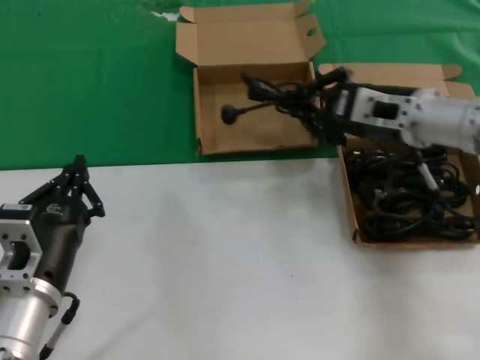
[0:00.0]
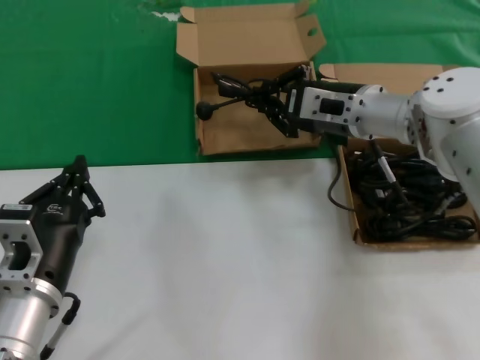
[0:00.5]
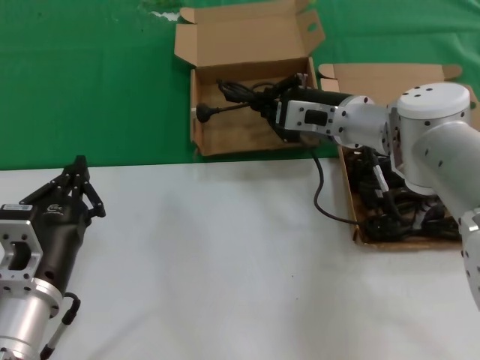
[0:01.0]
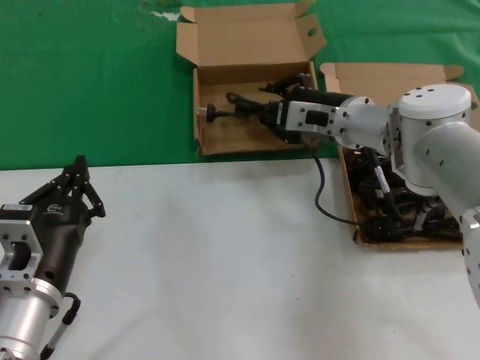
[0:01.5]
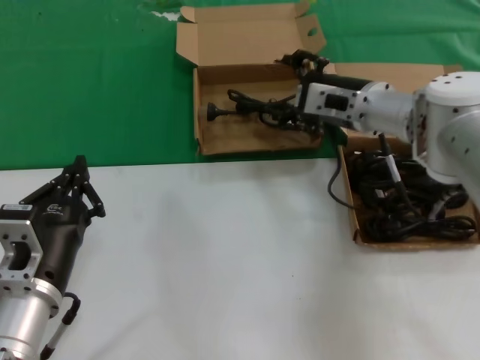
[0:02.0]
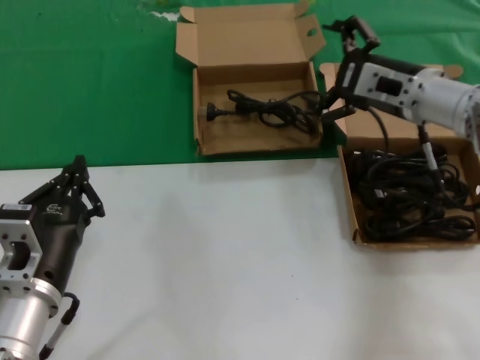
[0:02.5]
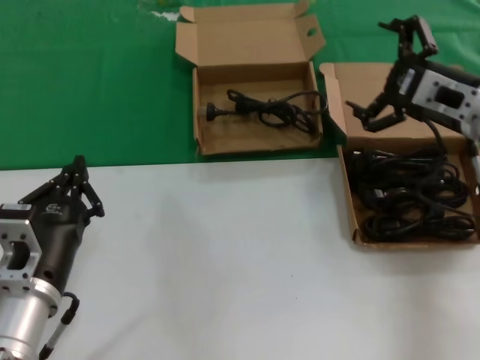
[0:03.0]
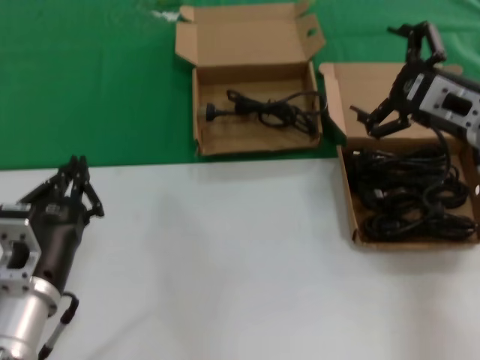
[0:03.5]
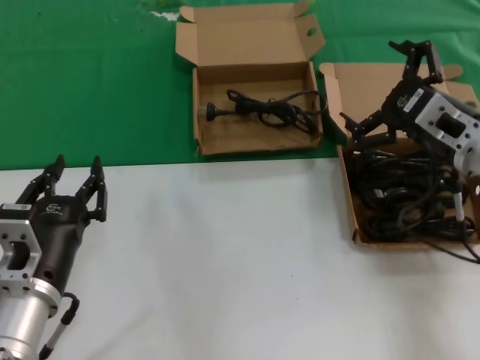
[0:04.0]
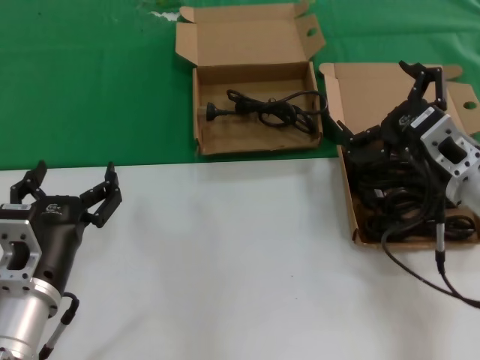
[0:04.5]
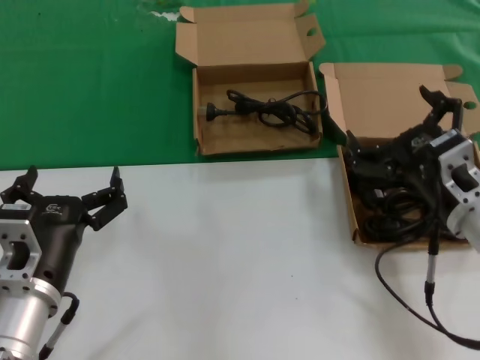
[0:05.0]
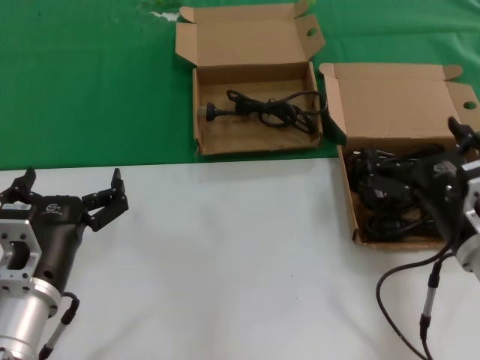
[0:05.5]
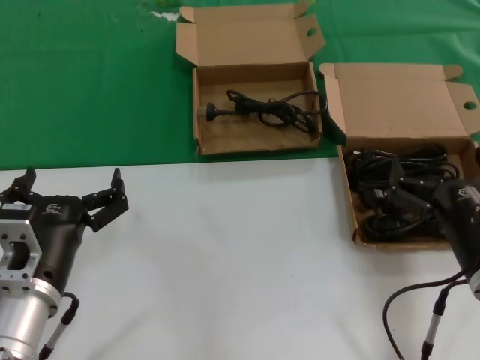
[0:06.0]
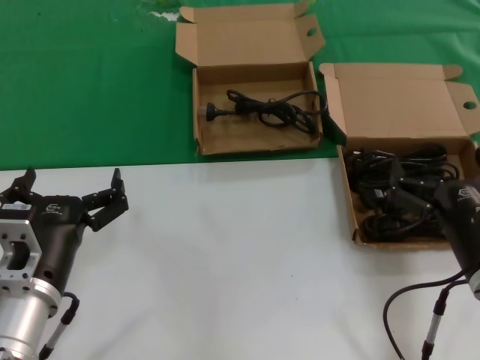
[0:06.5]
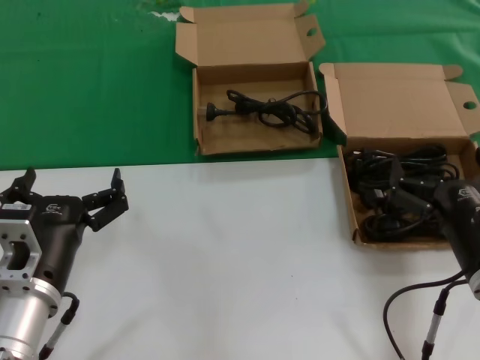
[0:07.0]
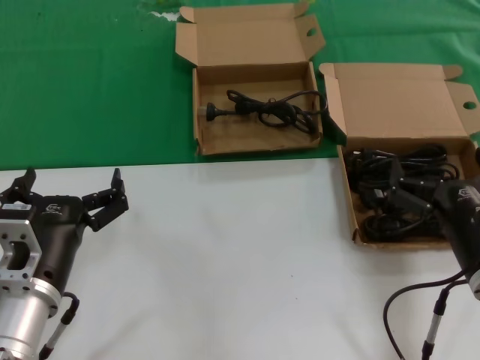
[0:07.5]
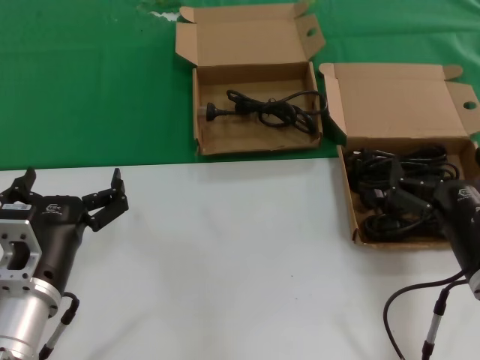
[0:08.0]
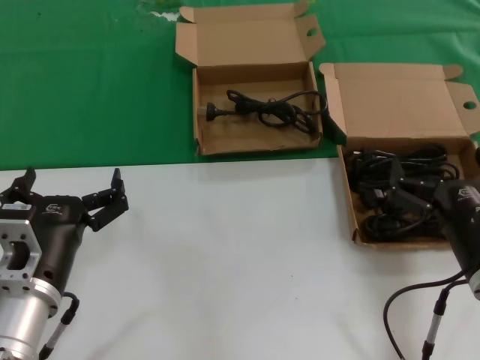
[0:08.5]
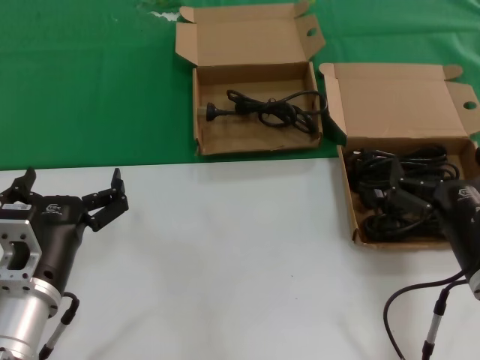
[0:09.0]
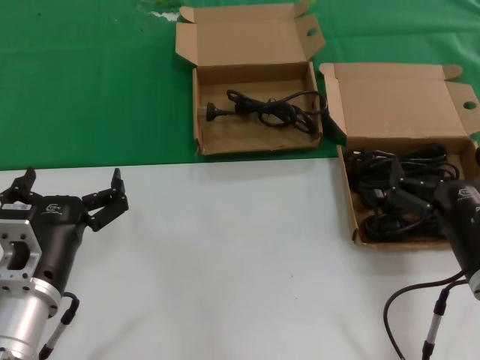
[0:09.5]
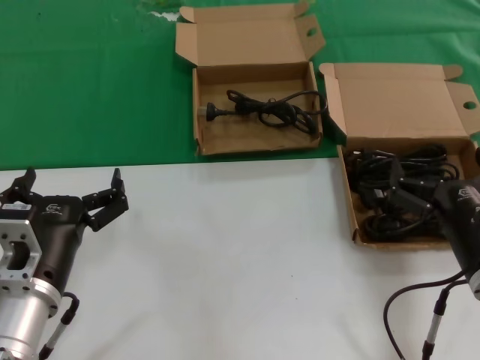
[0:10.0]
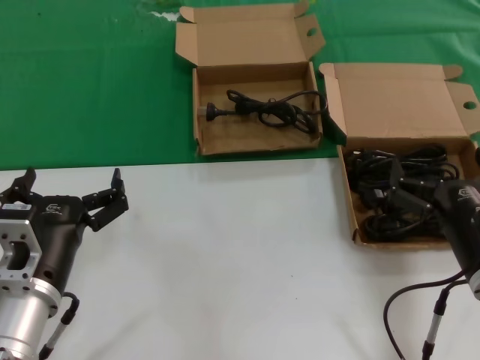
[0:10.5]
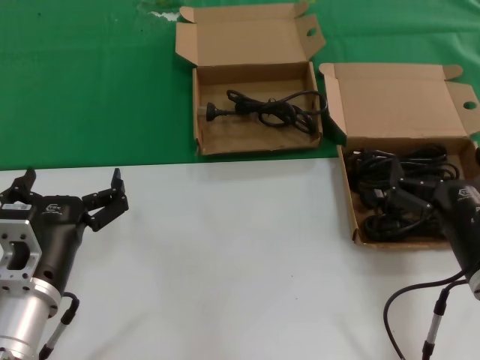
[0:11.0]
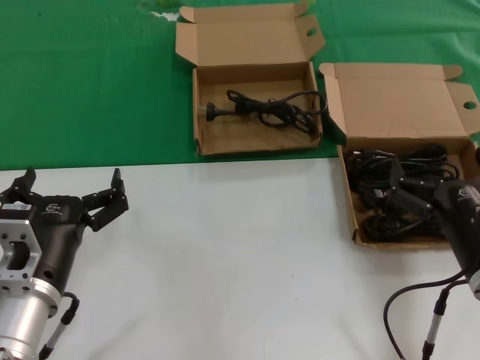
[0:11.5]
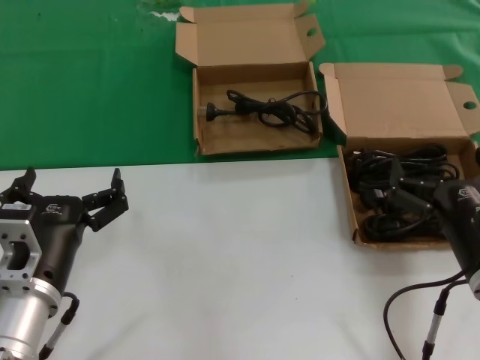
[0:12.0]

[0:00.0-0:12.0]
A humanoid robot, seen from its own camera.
Task of the whole recording: take the parts from the box containing them and put them into an empty box.
0:00.0 to 0:02.0: The right hand is displaced forward by about 5 cm.
0:02.0 to 0:04.0: The right hand moves backward and to the right, roughly 15 cm.
0:04.0 to 0:06.0: The right hand travels backward and downward by about 15 cm.
0:06.0 to 0:12.0: The two hands keep their place.

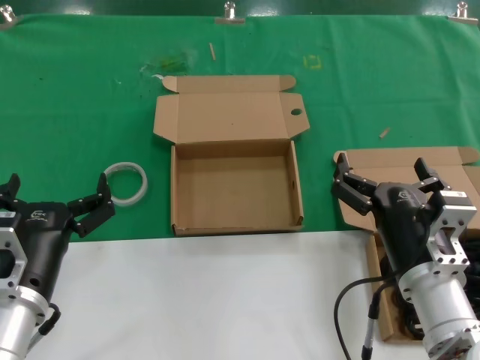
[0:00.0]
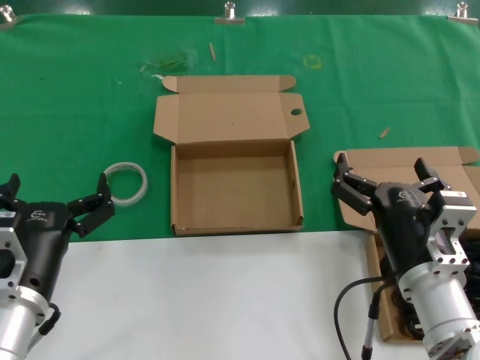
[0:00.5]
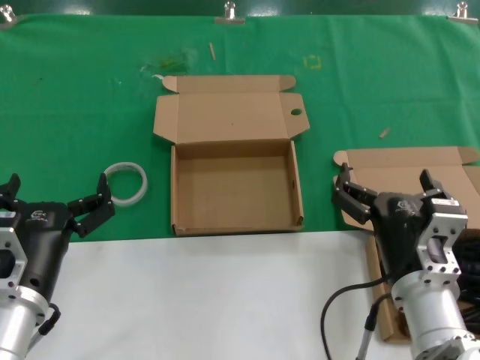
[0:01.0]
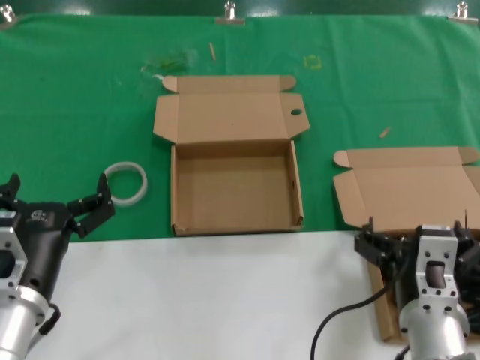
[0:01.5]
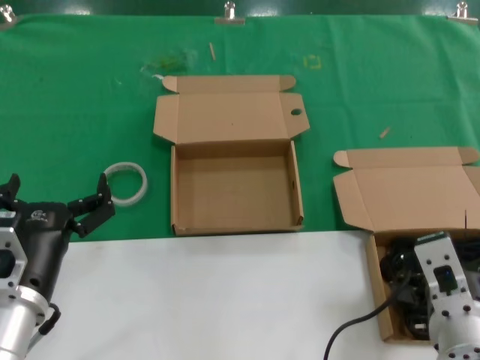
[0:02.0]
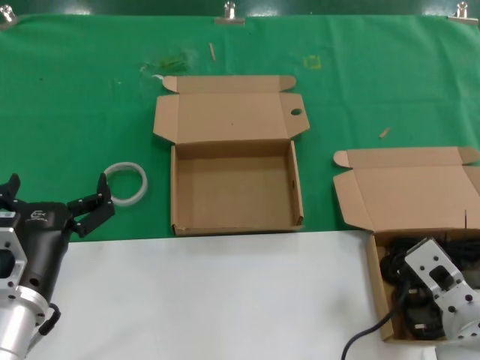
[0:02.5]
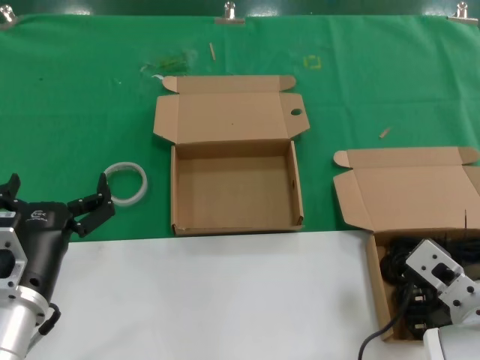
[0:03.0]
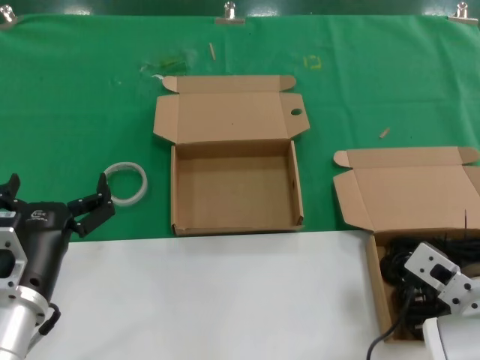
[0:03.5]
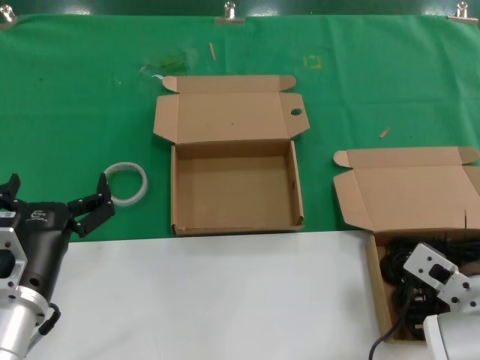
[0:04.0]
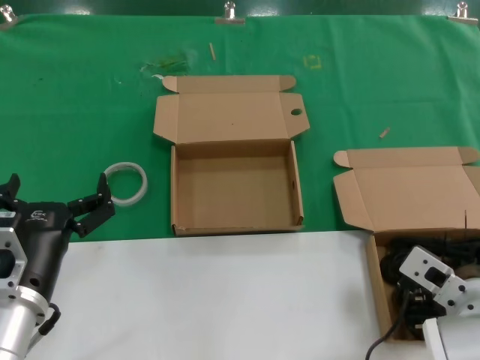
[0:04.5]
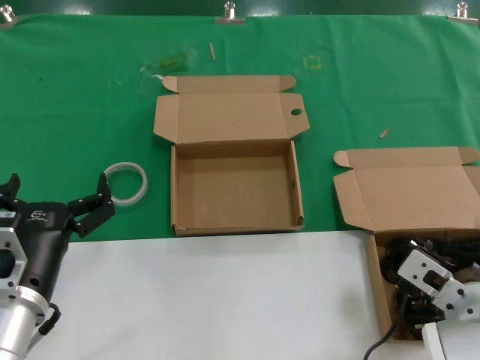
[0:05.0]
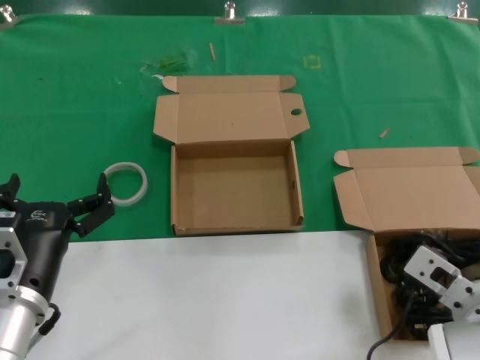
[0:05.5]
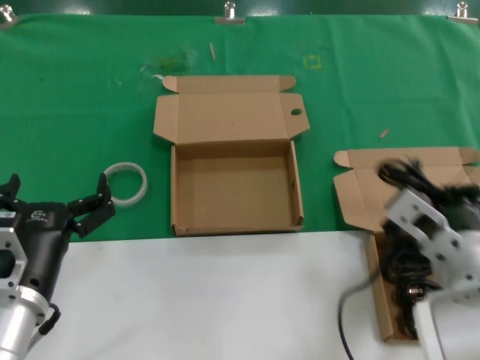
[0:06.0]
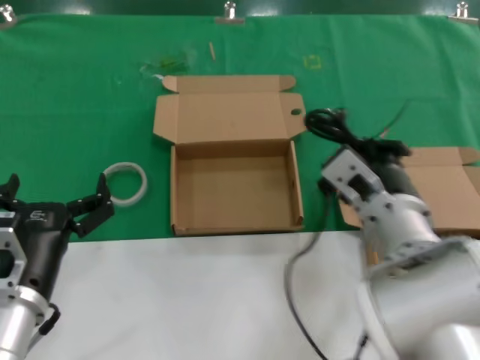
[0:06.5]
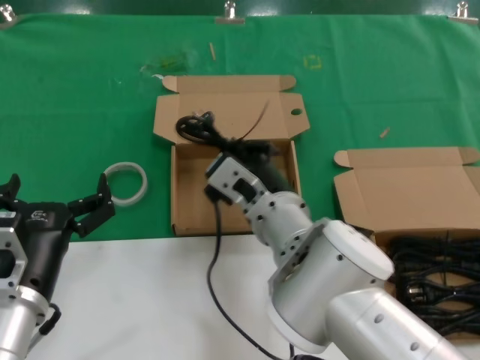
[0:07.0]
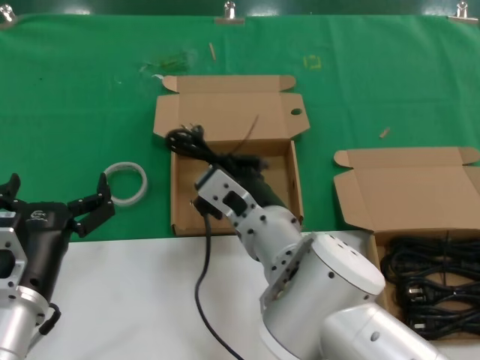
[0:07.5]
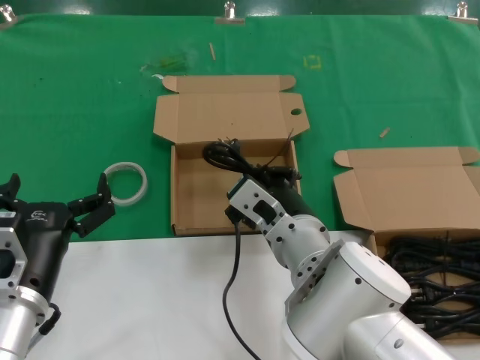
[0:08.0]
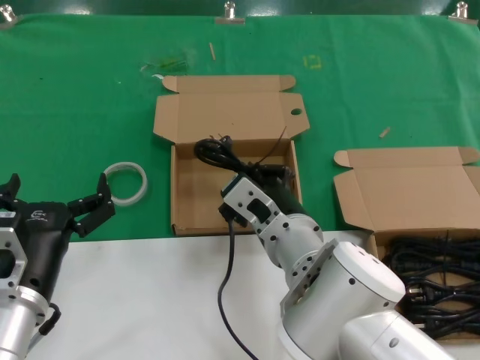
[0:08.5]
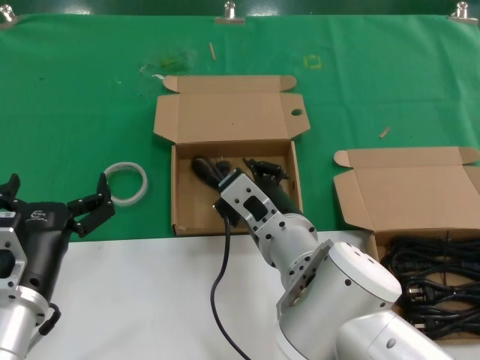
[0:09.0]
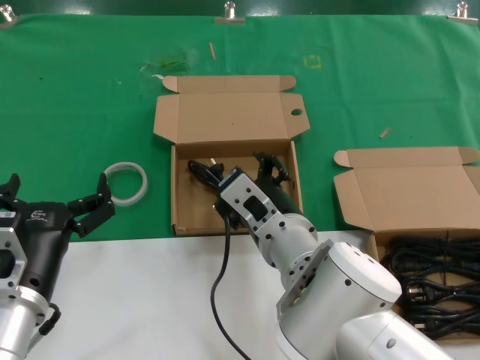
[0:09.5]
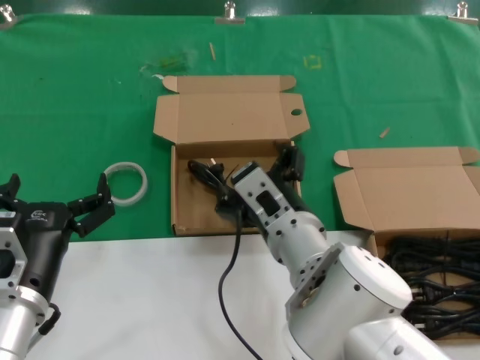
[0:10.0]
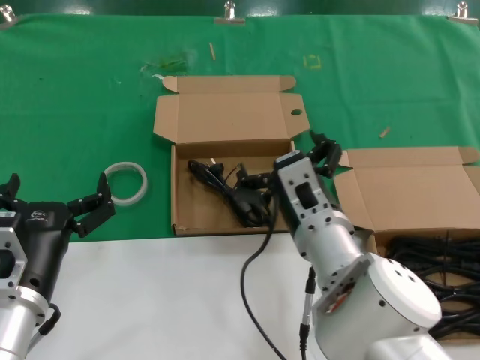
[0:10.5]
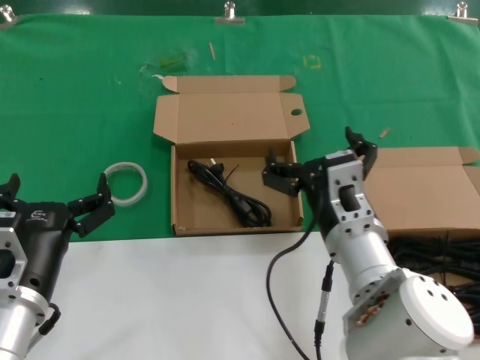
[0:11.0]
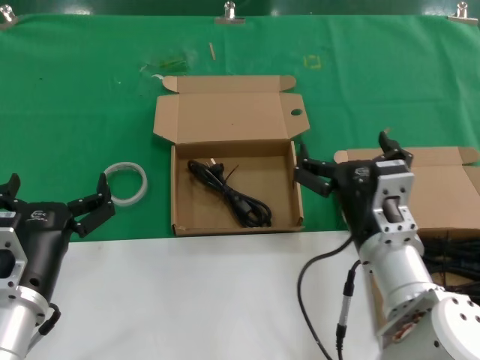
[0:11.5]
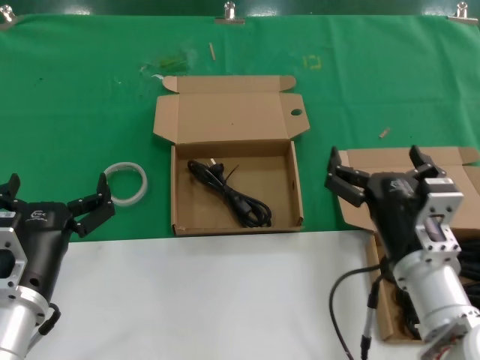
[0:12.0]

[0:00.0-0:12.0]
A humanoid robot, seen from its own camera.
Task of the whole recording: take the parts from the box containing them and put them into an empty box.
Step, 0:00.0 to 0:04.5: Grasp the data cable.
Step, 0:05.0 to 0:09.0: Place the data cable in the another box.
0:00.0 to 0:02.0: The right hand shifts approximately 5 cm backward.
0:02.0 to 0:04.0: The right hand moves forward, about 5 cm.
0:04.0 to 0:06.0: The right hand is displaced upward by some 5 cm.
0:06.0 to 0:08.0: The right hand goes some 15 cm to the left and forward.
0:08.0 to 0:10.0: The hands move only a little.
0:10.0 to 0:12.0: The right hand travels to the right by roughly 15 cm.

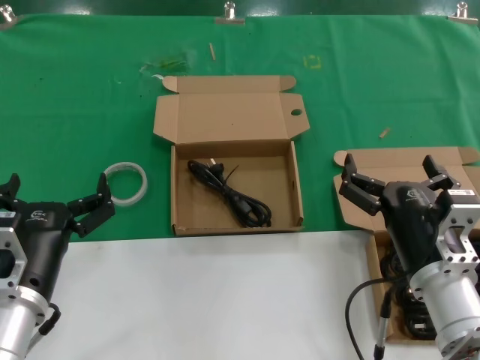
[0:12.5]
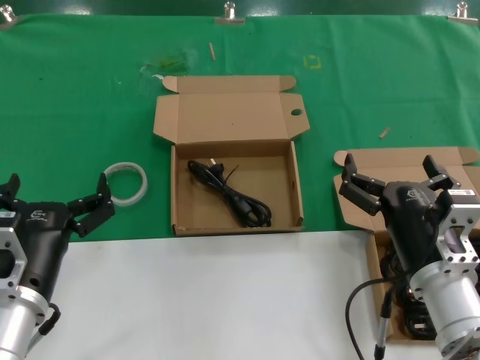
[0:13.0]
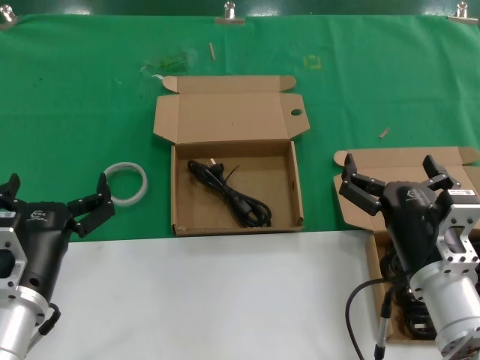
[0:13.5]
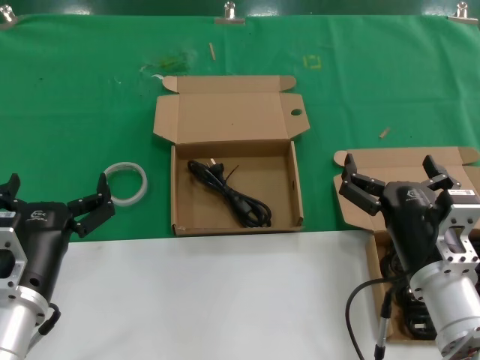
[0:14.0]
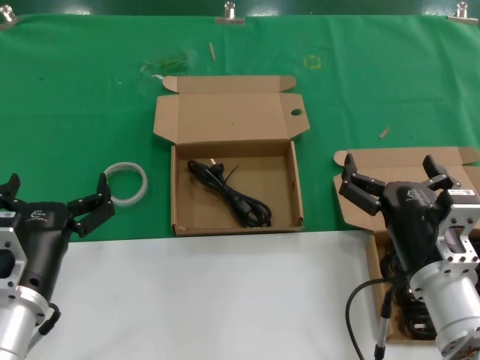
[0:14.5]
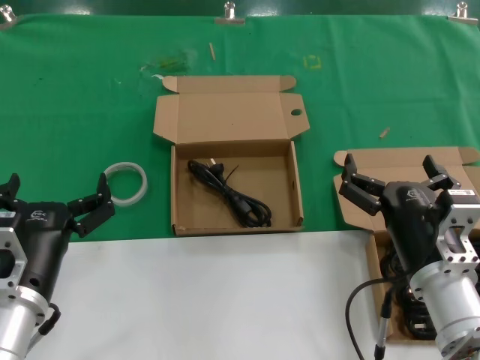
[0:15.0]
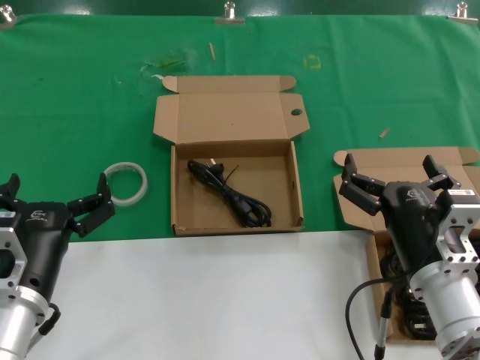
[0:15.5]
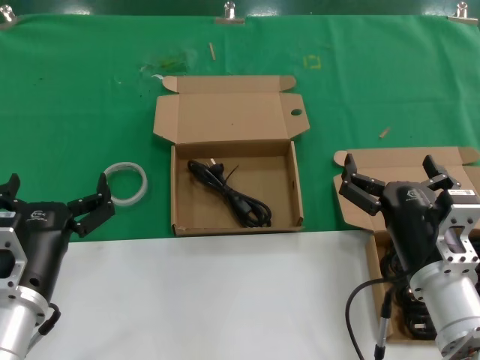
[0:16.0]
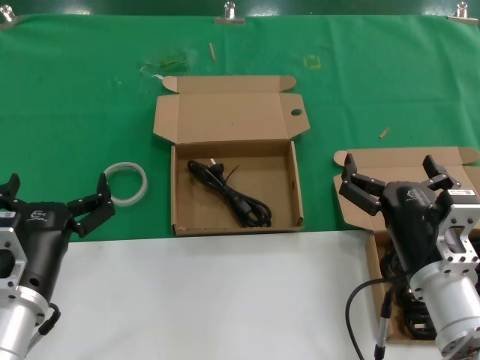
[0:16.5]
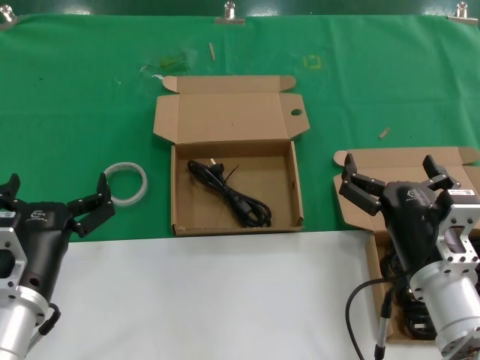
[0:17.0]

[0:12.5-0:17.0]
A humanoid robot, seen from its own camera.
Task of the whole recording: take the parts from the box containing them and put them into an empty box.
0:12.5 to 0:17.0: Both hands stay put.
